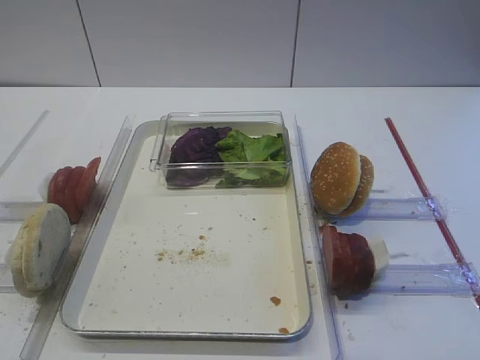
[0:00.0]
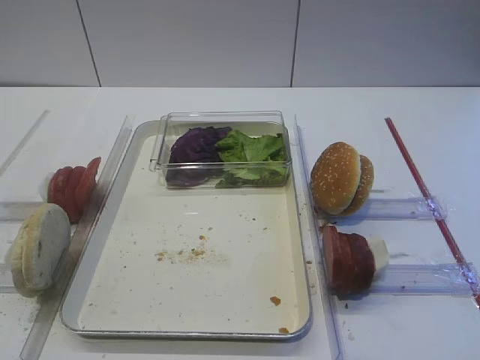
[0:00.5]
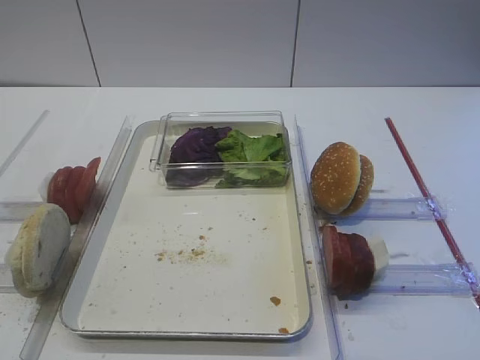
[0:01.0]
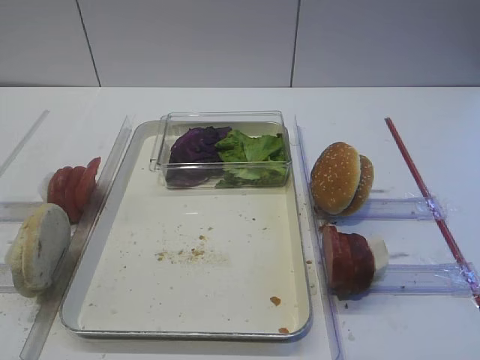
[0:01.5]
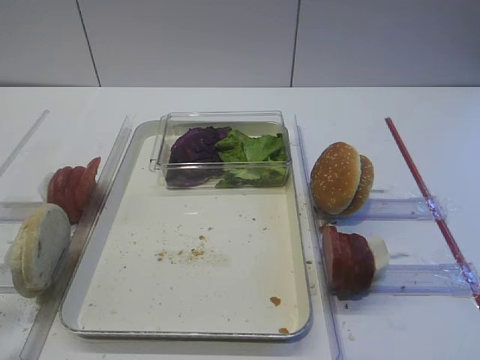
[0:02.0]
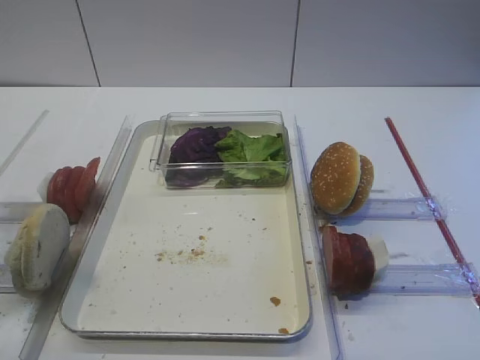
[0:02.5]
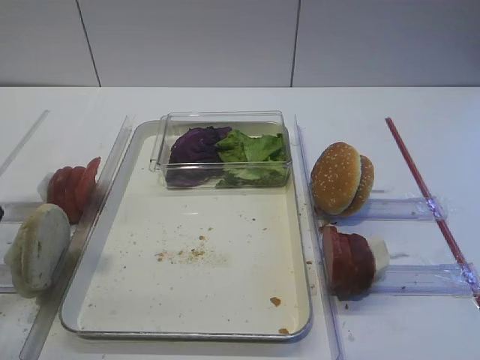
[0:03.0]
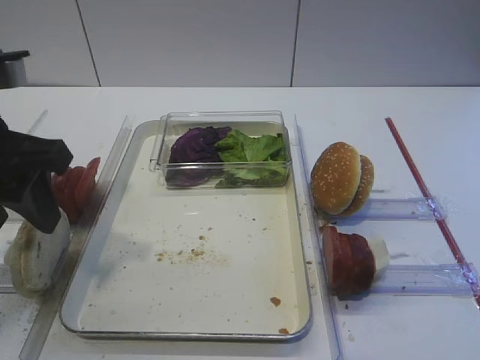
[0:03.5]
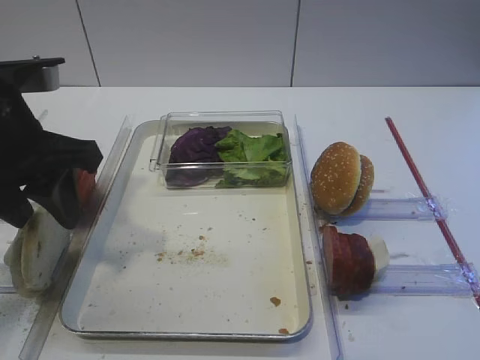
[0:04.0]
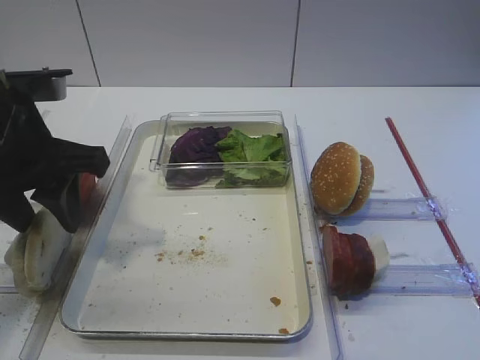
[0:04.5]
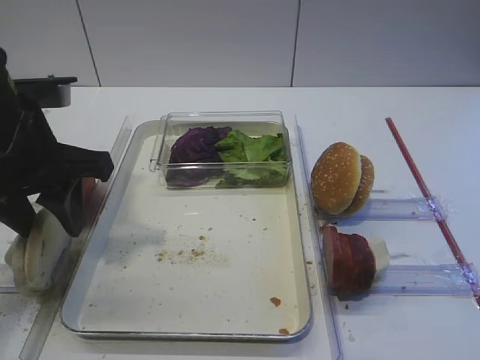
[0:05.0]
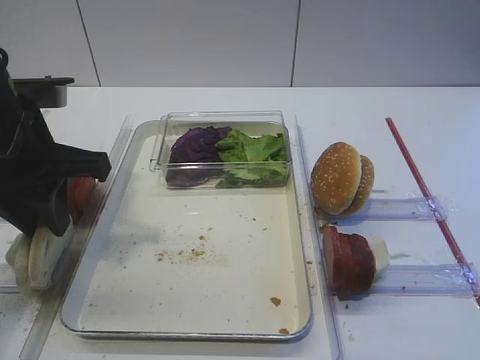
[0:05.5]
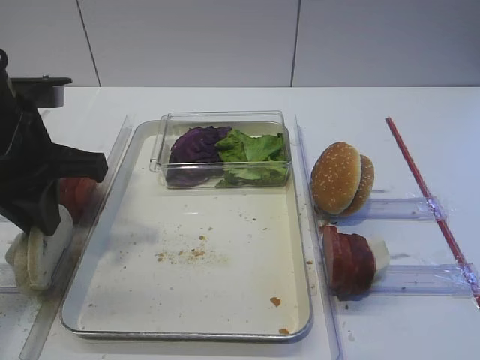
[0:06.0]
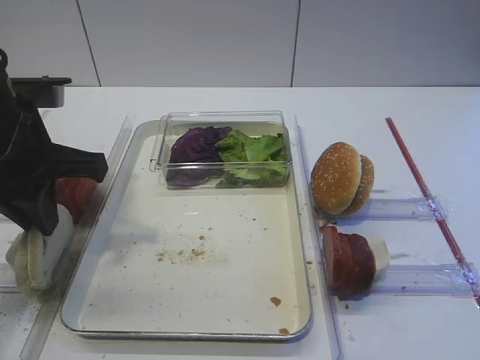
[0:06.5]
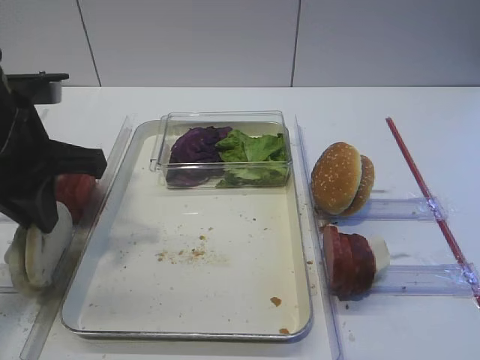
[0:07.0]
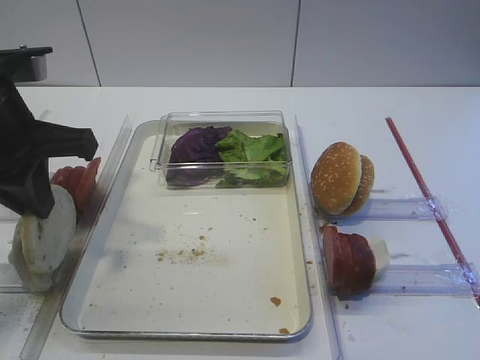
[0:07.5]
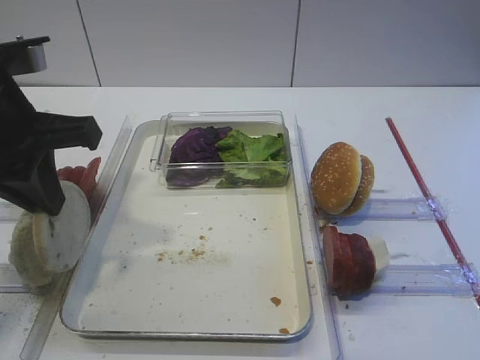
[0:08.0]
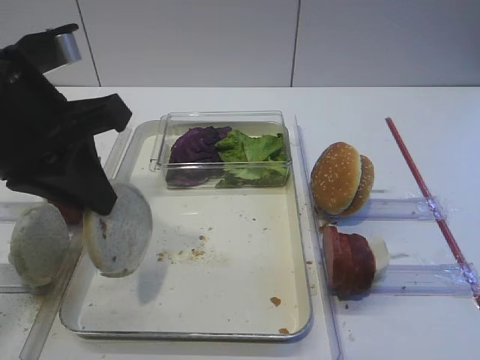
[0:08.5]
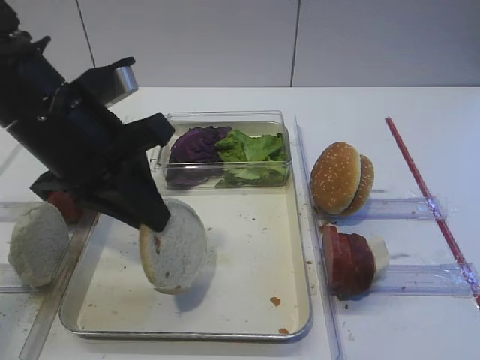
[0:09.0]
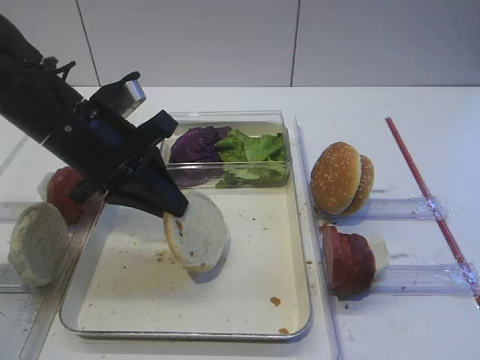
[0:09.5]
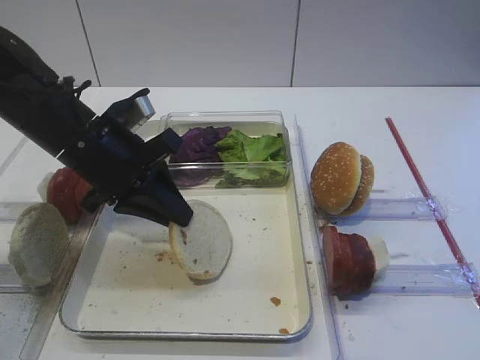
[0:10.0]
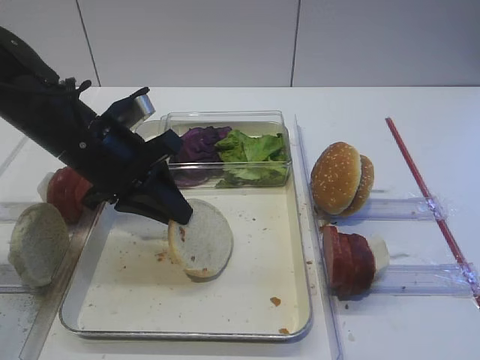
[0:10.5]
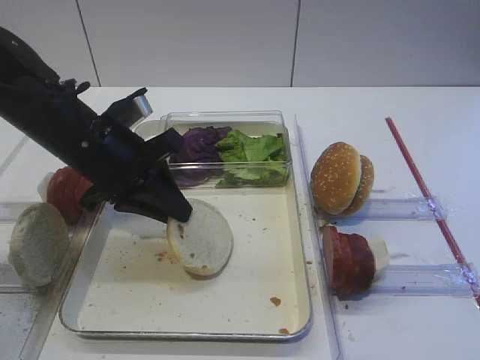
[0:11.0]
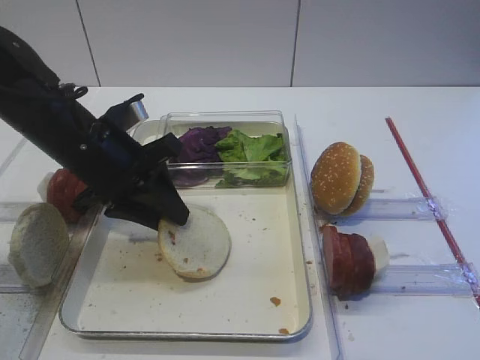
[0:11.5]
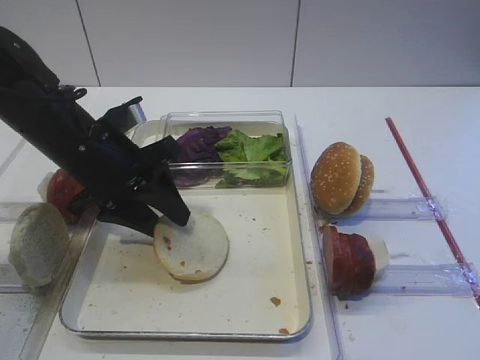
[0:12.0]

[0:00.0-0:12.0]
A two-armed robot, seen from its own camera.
Step, 0:00.0 to 0:07.5: Pick up the bread slice with the left gripper.
0:02.0 to 0:04.0: The left gripper heads forward, covering approximately 20 cm.
0:04.0 to 0:06.0: The left gripper closes its fingers.
0:06.0 to 0:08.0: The grippers make only small movements.
0:08.0 to 0:10.0: The left gripper moves downward and forward, approximately 10 cm.
0:10.0 to 0:12.0: The left gripper opens up.

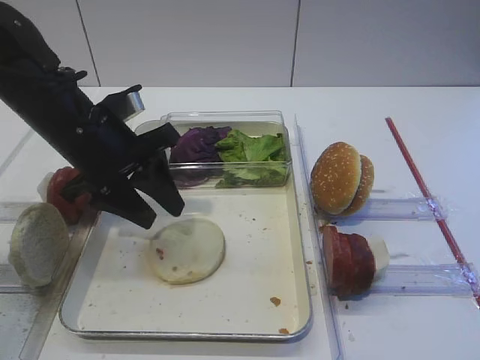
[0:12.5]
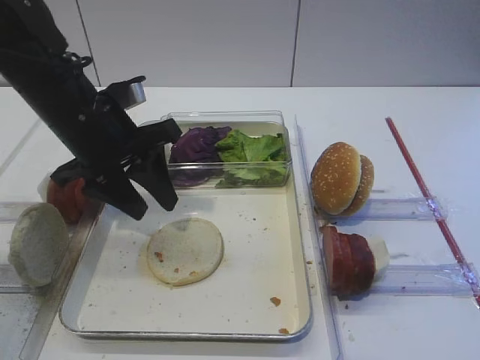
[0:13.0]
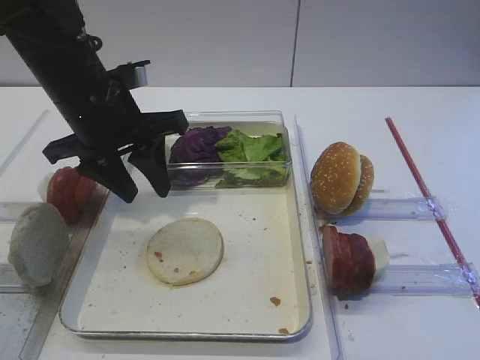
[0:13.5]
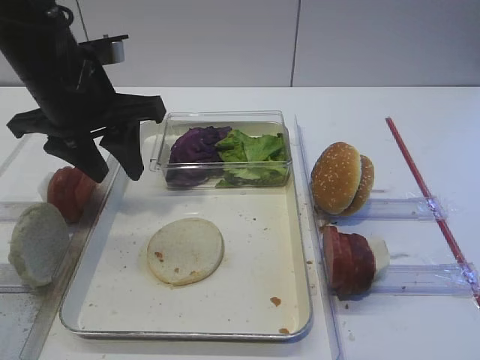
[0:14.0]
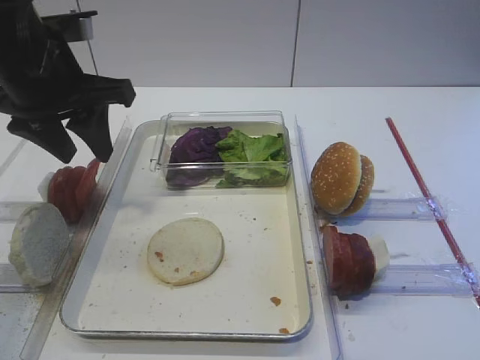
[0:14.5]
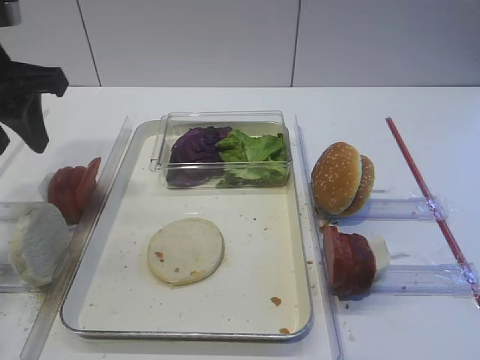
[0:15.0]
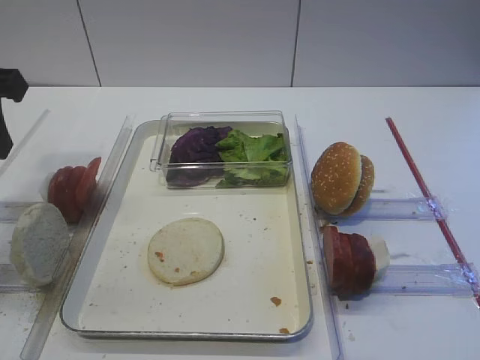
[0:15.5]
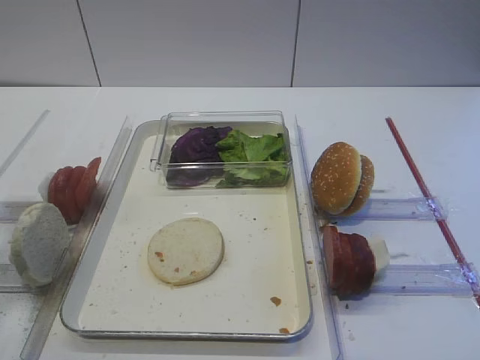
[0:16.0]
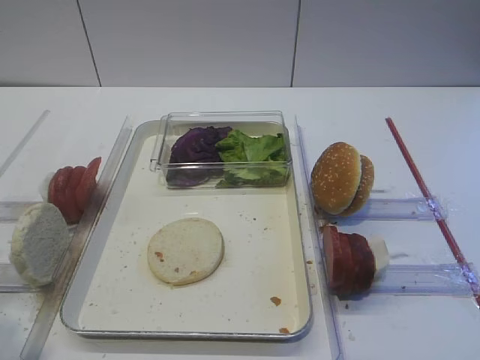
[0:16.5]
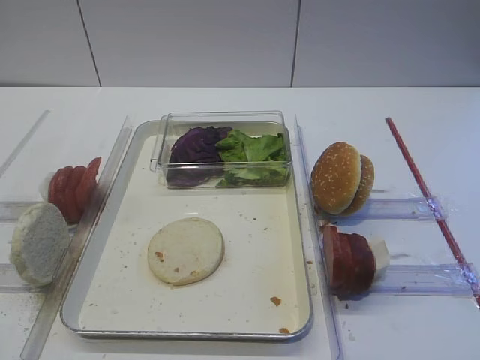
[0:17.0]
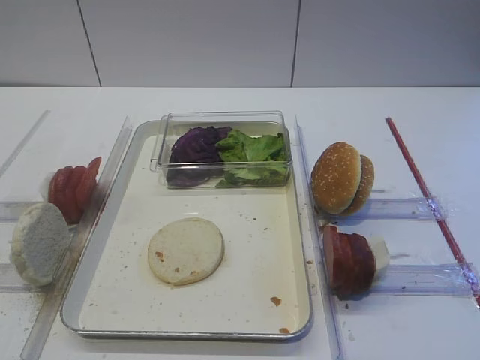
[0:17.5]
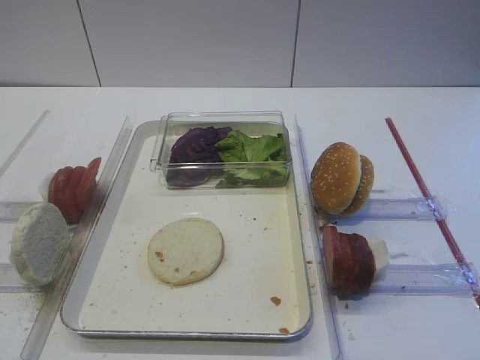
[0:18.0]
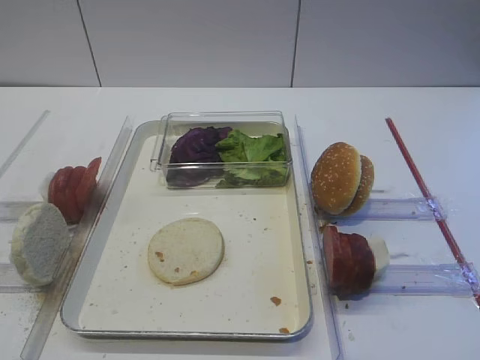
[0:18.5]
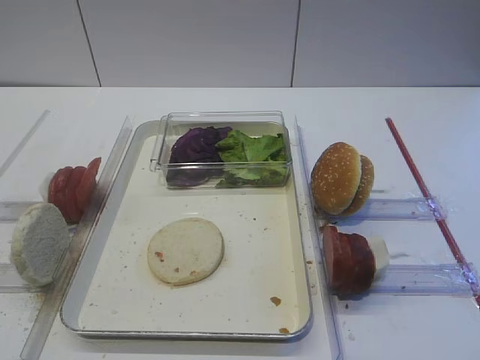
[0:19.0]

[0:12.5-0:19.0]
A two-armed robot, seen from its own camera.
0:12.5 to 0:14.5: The left gripper shifts roughly 10 cm upward.
0:14.5 to 0:17.0: The left gripper travels backward by approximately 30 cm.

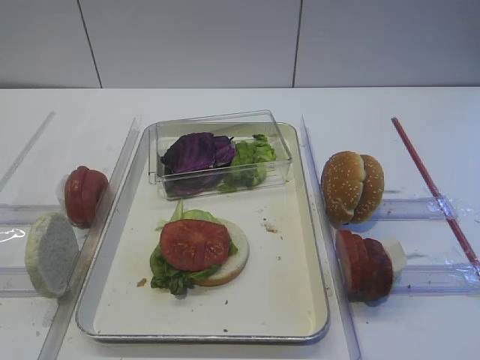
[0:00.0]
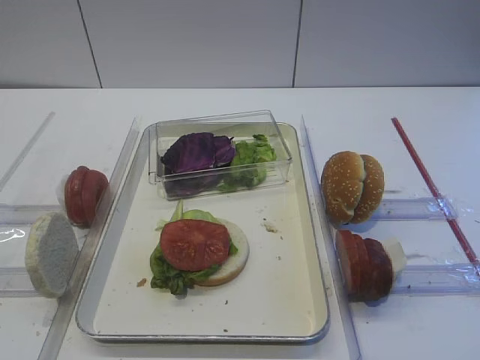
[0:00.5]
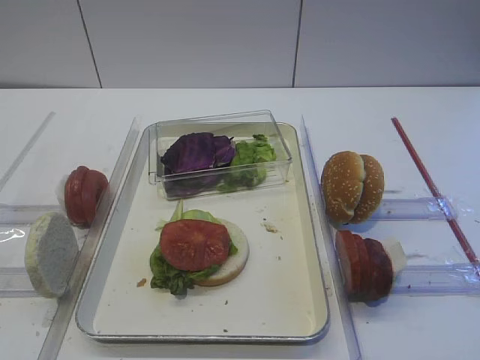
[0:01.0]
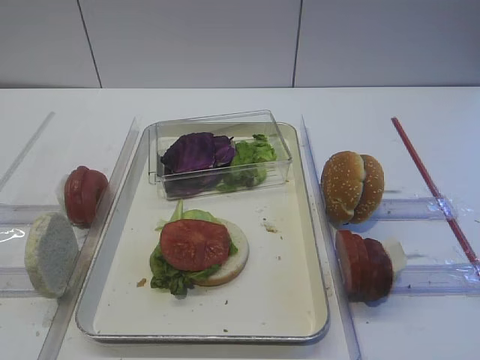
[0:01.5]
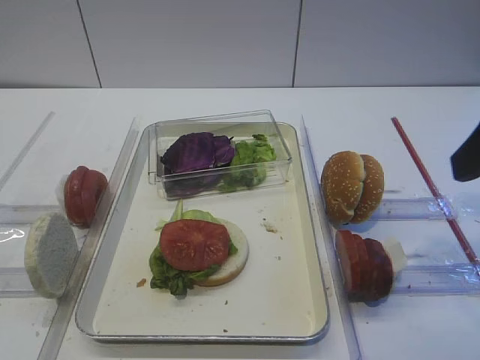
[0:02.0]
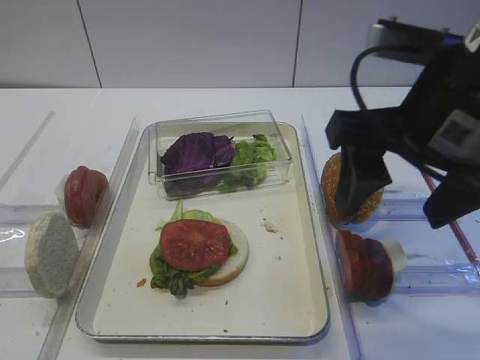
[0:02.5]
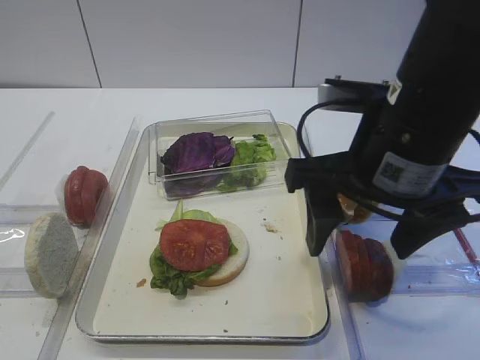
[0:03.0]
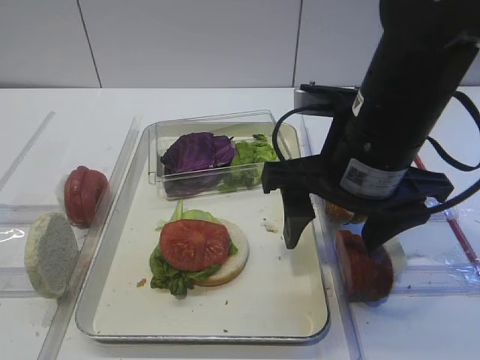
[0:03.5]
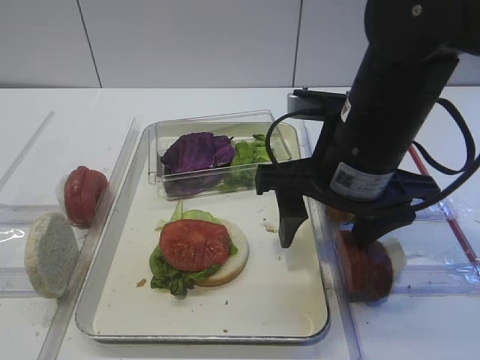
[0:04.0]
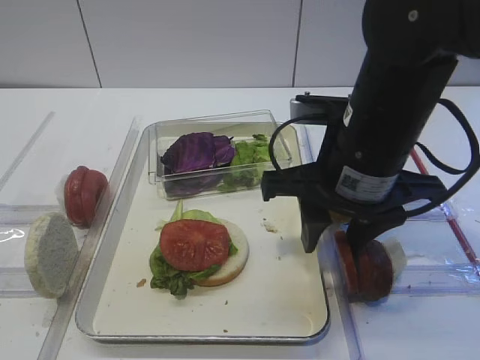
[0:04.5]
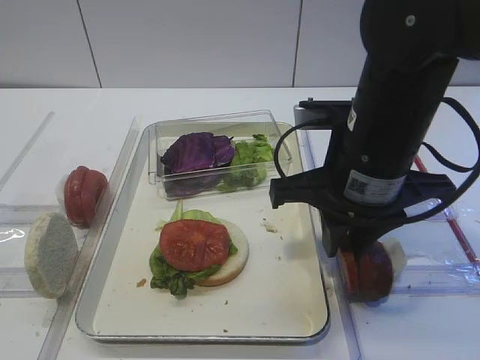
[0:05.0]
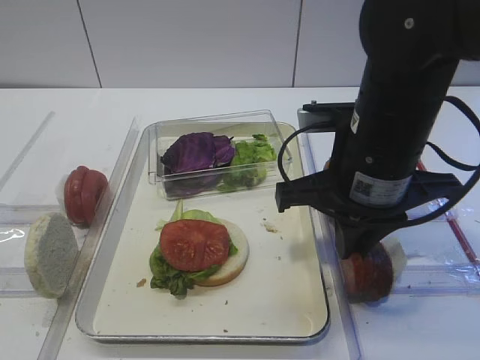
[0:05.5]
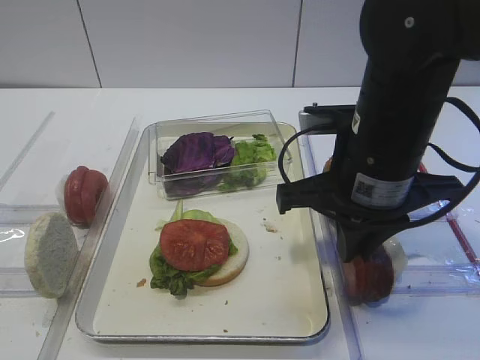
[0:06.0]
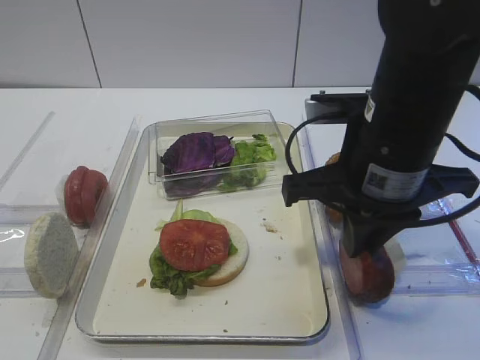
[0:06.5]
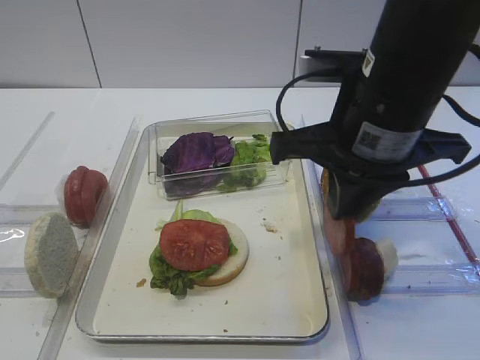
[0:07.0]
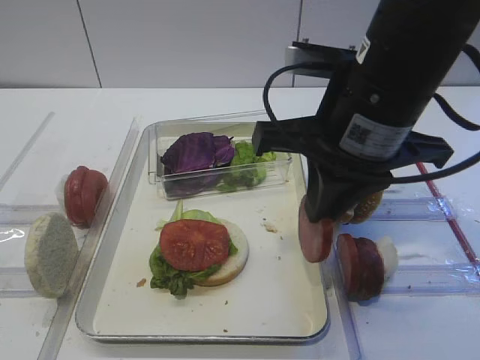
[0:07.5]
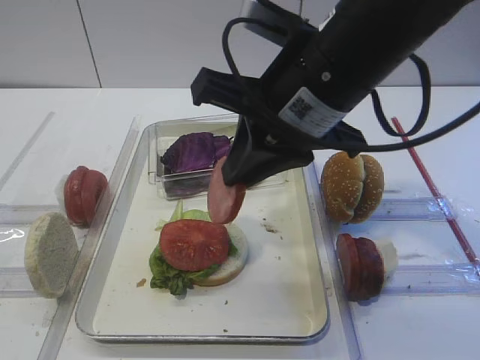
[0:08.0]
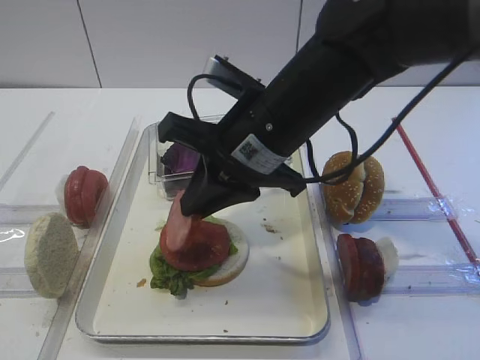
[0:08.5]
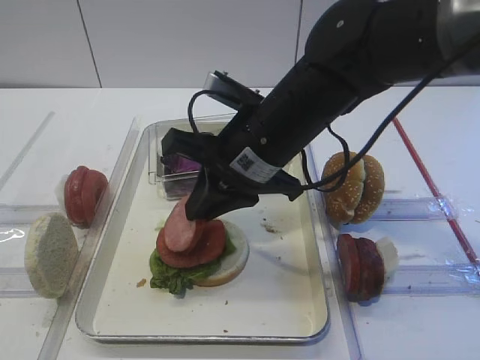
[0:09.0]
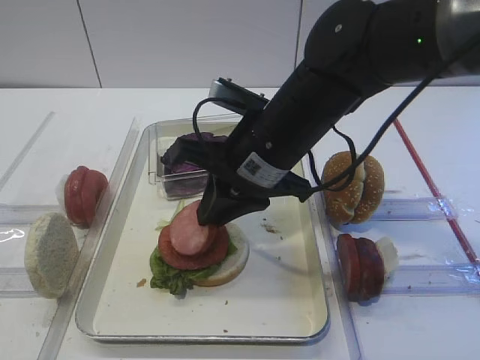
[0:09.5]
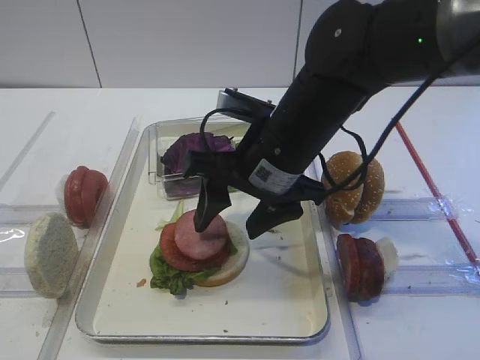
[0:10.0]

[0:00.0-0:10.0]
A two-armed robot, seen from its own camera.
Step, 0:00.0 to 0:07.0: Pick up the cutlet with the right gripper.
0:02.0 to 0:04.0: The right gripper is displaced to the left, downward and forward by about 20 cm.
0:04.0 to 0:06.0: The right gripper closes its fingers.
0:06.0 to 0:08.0: The right gripper travels upward by about 5 cm.
0:08.0 to 0:10.0: The right gripper goes approximately 10 cm downward, and opens.
